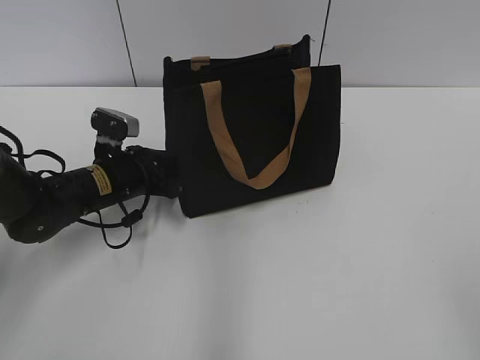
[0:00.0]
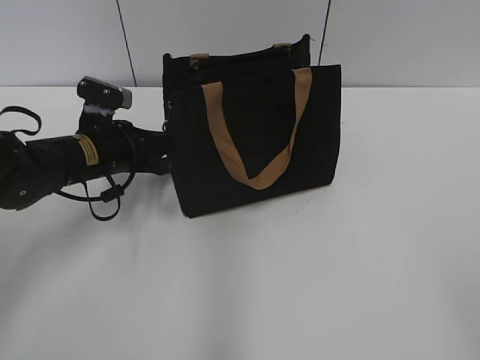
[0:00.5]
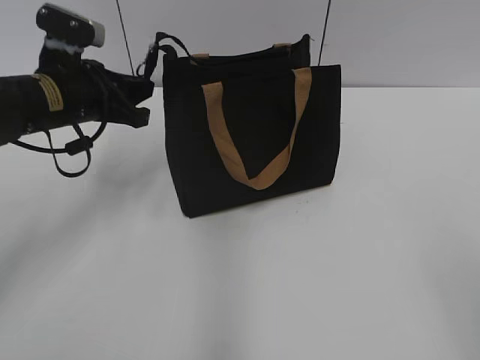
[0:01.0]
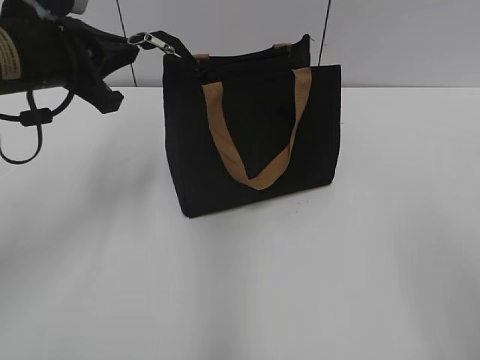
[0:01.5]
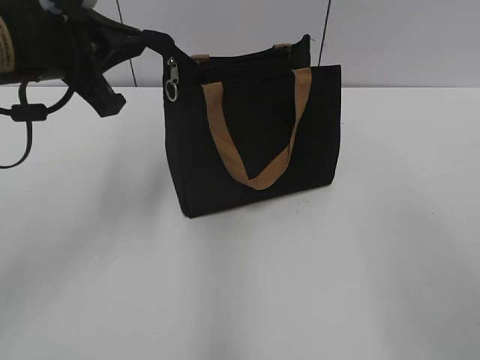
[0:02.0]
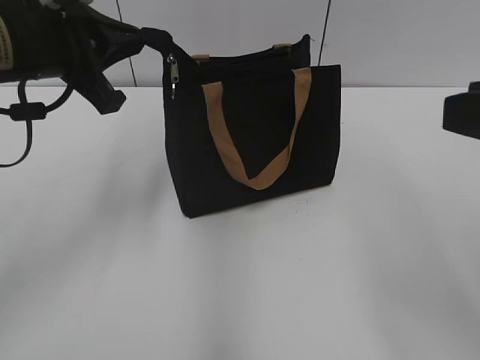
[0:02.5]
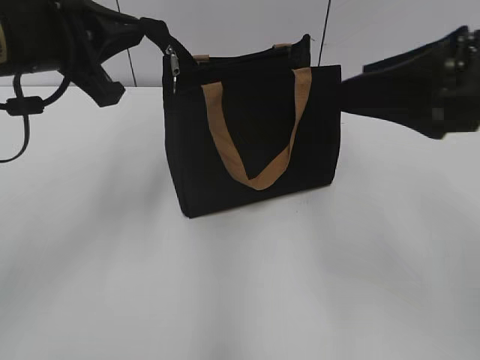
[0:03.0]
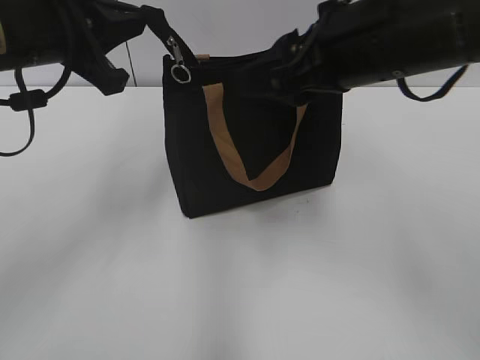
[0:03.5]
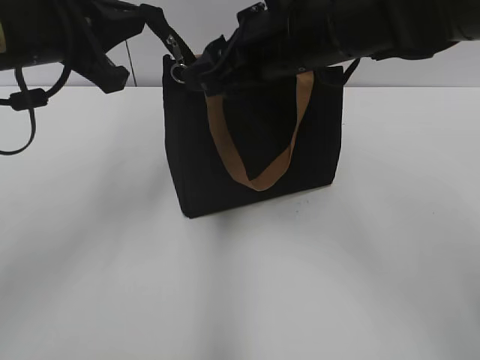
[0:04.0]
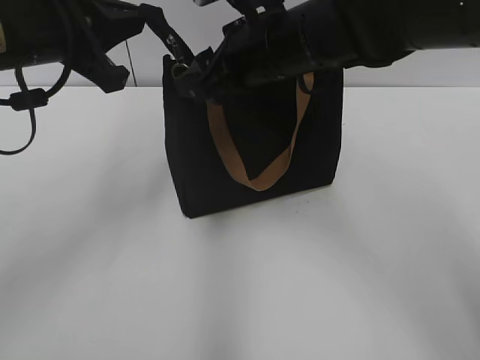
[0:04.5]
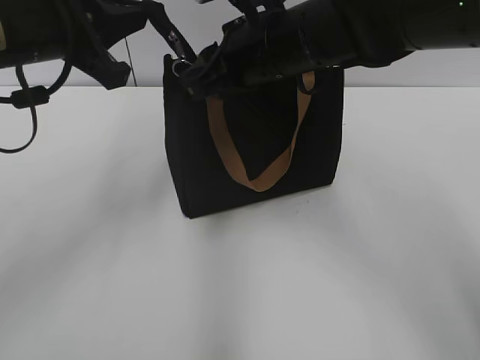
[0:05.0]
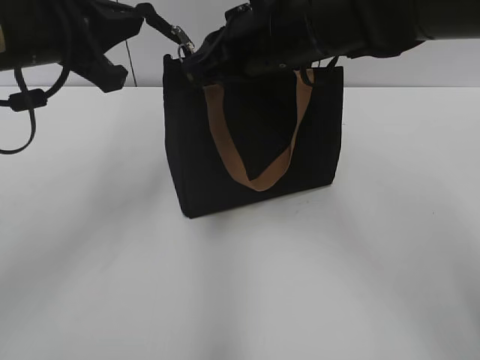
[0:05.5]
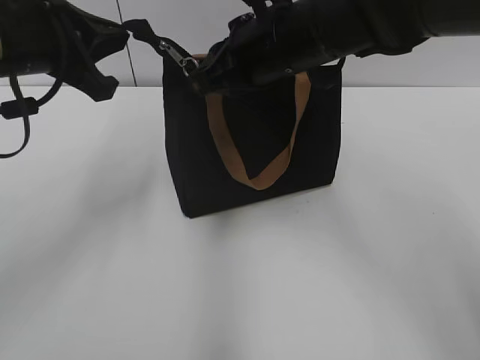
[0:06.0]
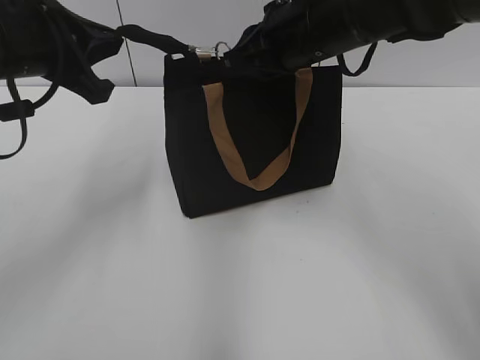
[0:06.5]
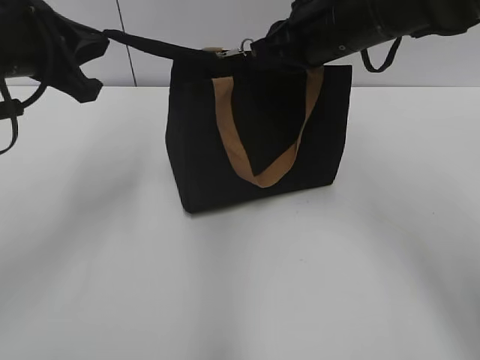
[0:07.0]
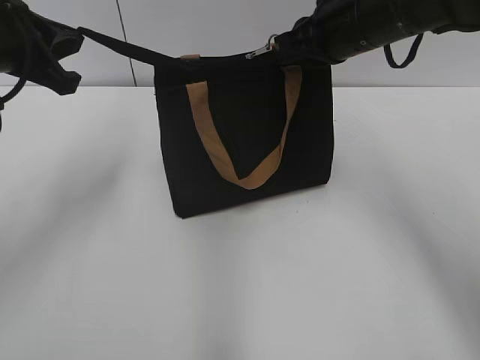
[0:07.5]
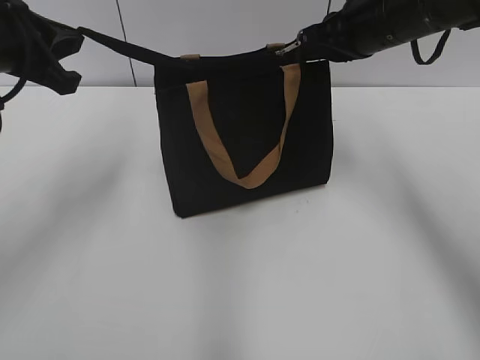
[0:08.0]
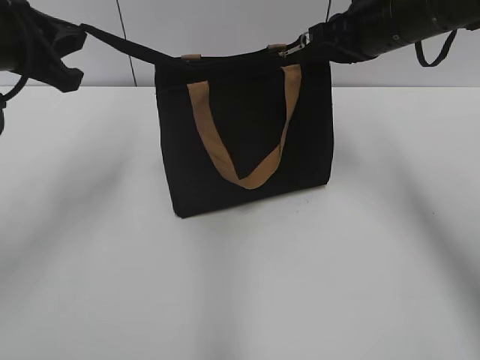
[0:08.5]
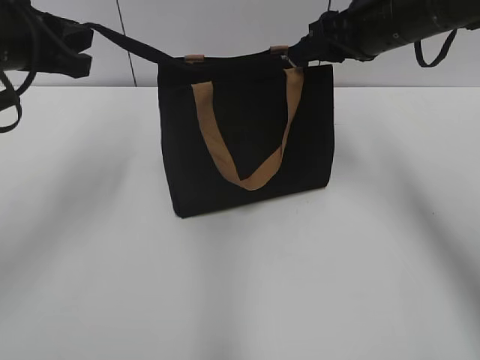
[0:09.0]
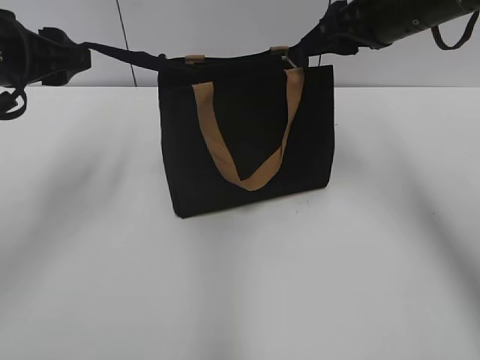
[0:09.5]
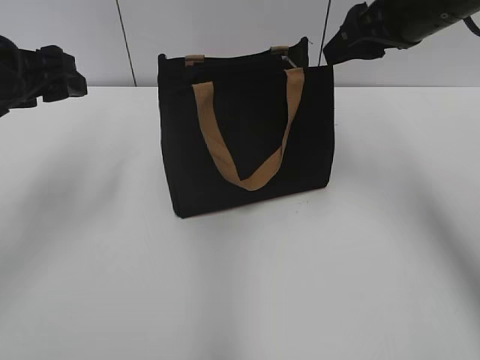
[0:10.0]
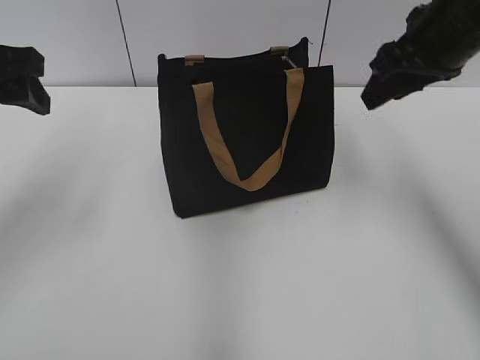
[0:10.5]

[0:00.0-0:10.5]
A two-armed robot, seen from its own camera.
Step, 0:00.0 to 0:08.5: Zip up the bag with your right hand.
Step, 0:09.0 to 0:09.5: Grab the zipper with your left hand.
0:00.0 to 0:02.0: The right gripper moves forward, approximately 10 cm; the left gripper travels upward by approximately 20 cm.
0:02.0 to 0:04.0: The right gripper heads forward and to the left, covering some 30 cm.
0:04.0 to 0:06.5: The right gripper closes up.
0:06.5 to 0:08.5: The right gripper travels to the right by approximately 10 cm.
0:08.5 to 0:10.5: The left gripper opens up; the right gripper travels backward by some 5 cm, and opens up.

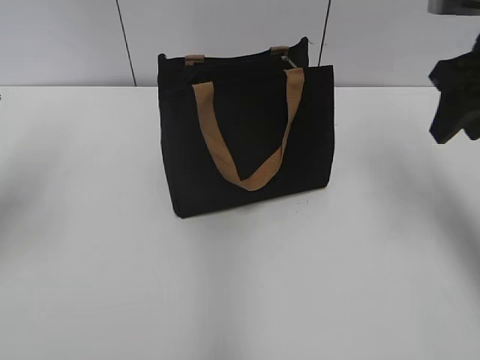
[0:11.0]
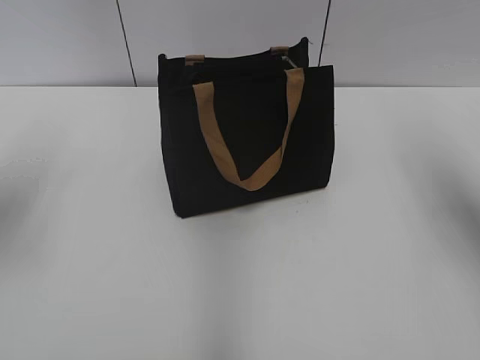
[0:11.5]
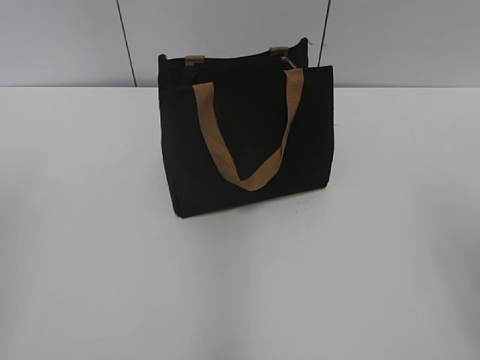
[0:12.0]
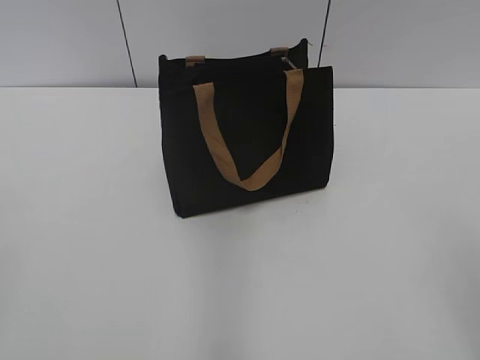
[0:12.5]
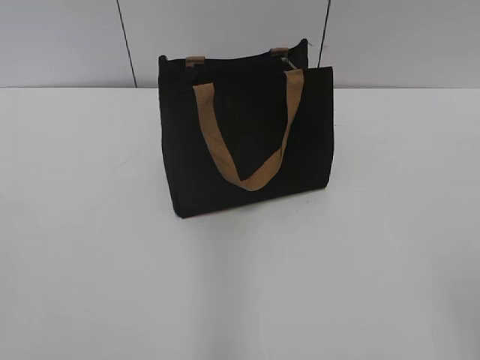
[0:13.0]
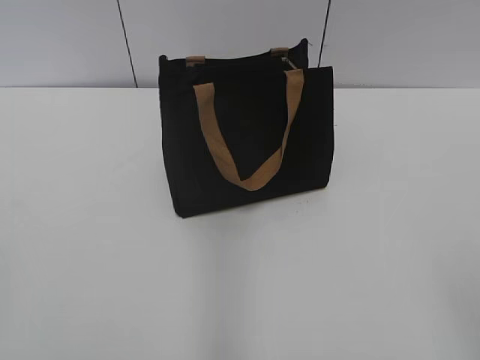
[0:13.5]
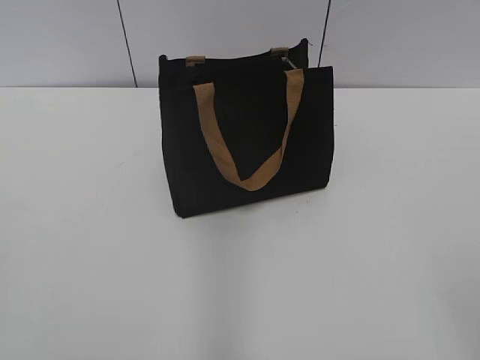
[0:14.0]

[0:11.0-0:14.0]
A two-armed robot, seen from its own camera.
0:11.0 to 0:12.5: The two grippers go about 25 cm backward.

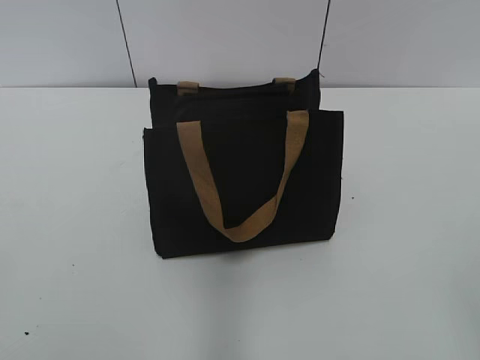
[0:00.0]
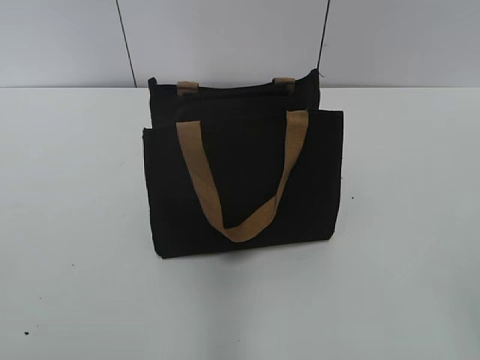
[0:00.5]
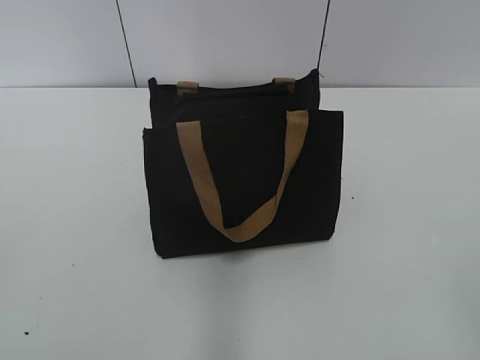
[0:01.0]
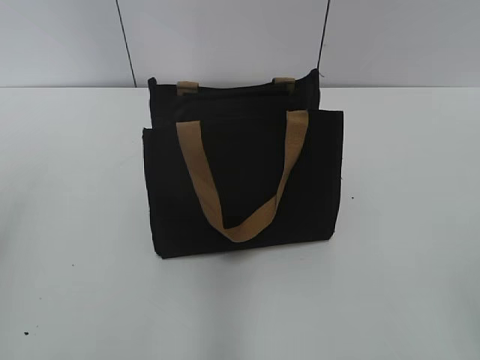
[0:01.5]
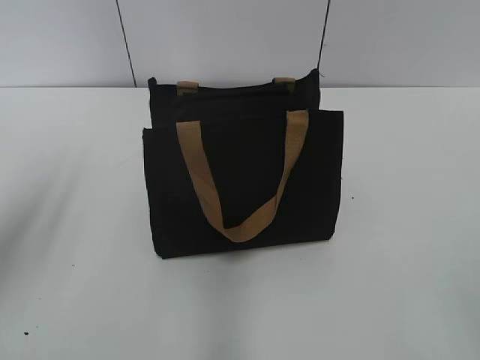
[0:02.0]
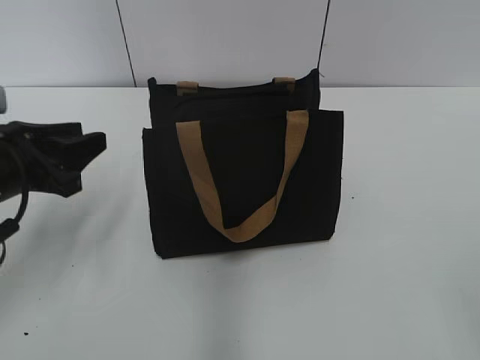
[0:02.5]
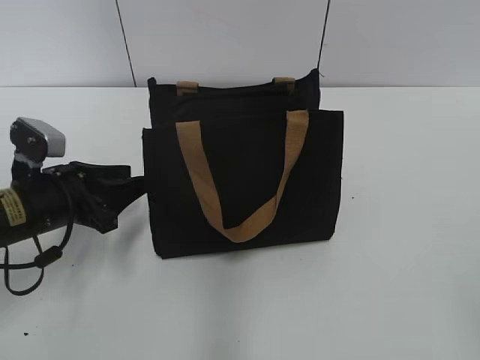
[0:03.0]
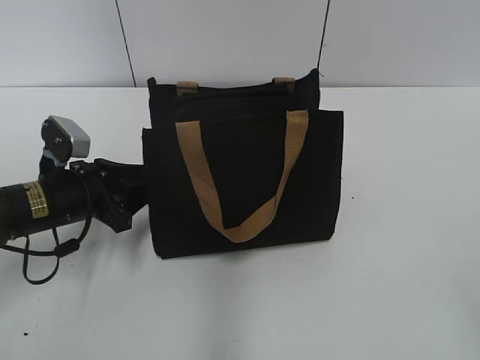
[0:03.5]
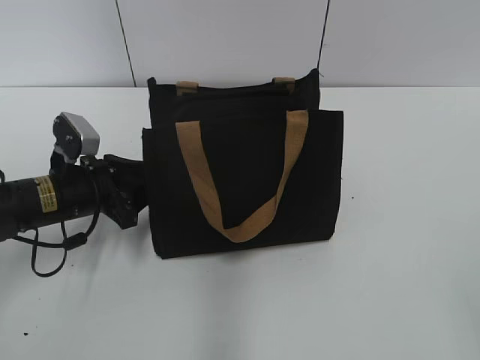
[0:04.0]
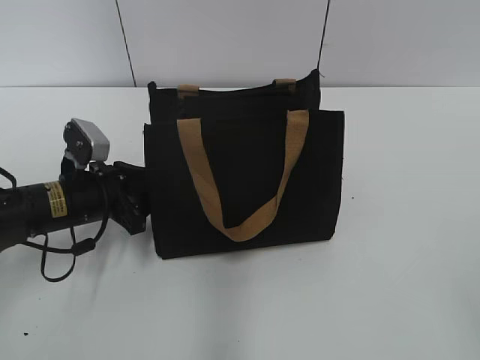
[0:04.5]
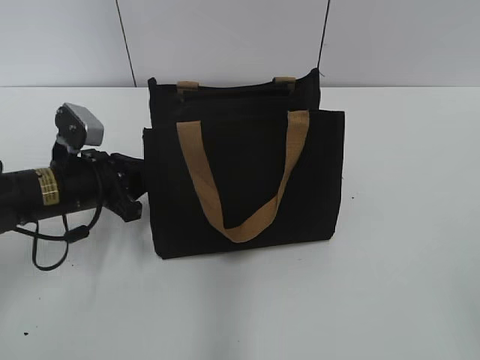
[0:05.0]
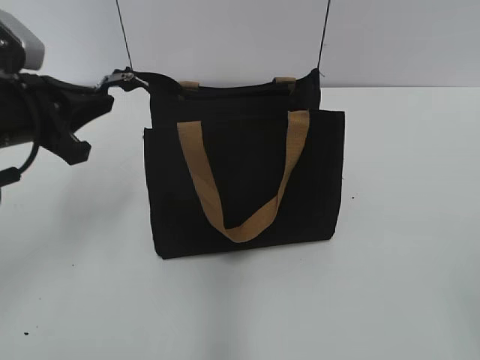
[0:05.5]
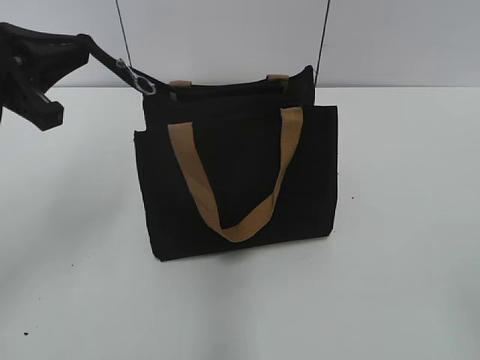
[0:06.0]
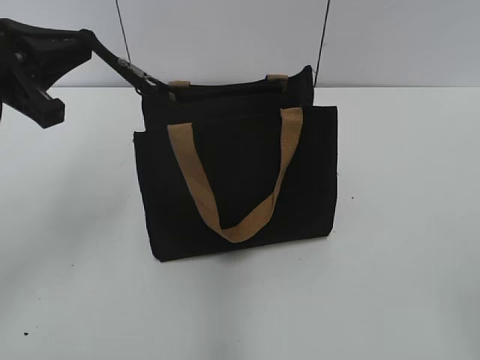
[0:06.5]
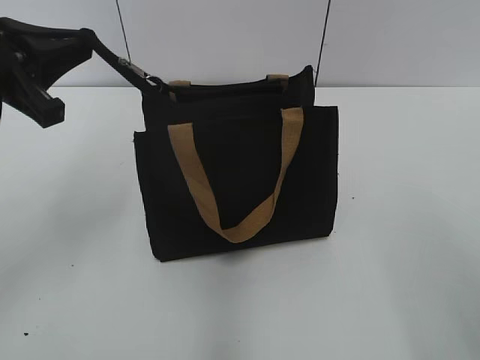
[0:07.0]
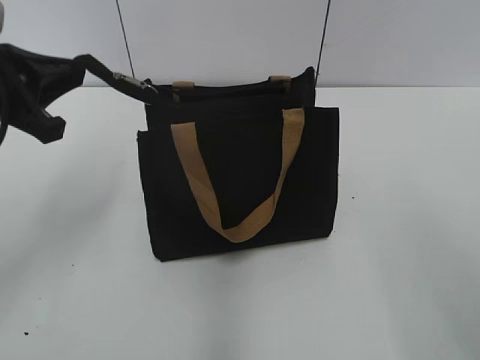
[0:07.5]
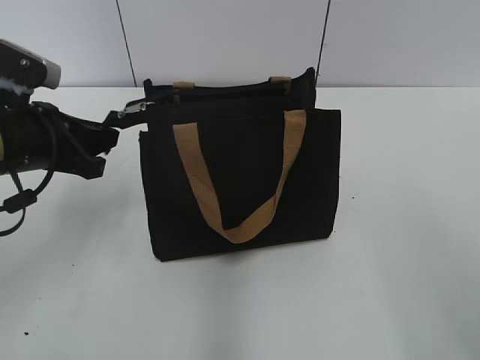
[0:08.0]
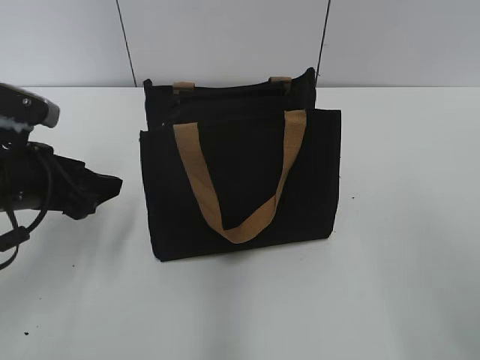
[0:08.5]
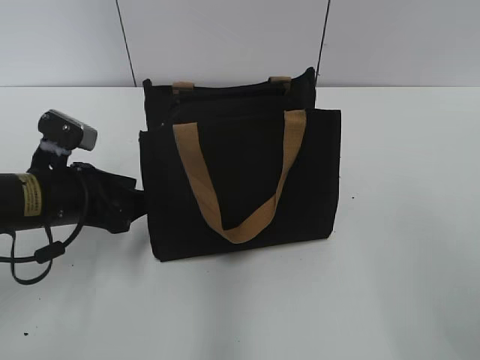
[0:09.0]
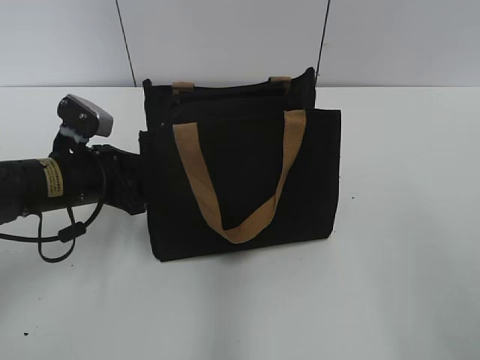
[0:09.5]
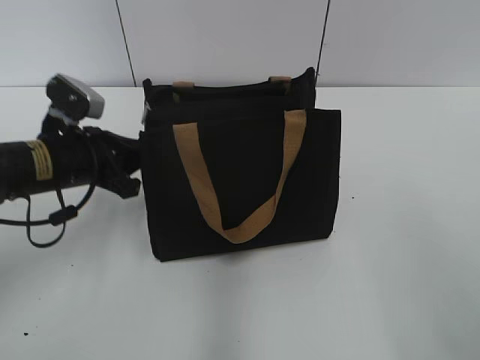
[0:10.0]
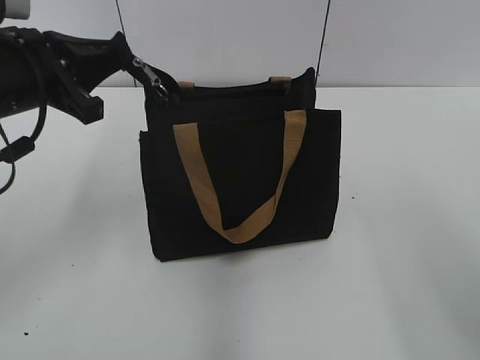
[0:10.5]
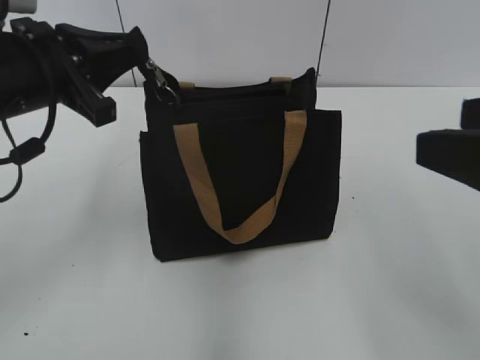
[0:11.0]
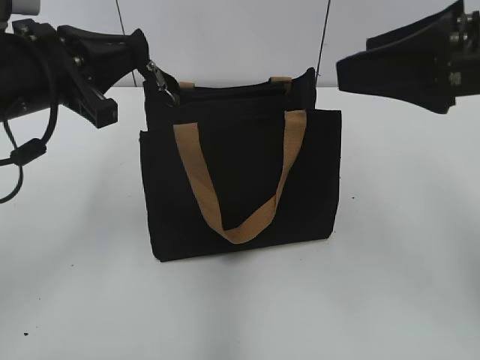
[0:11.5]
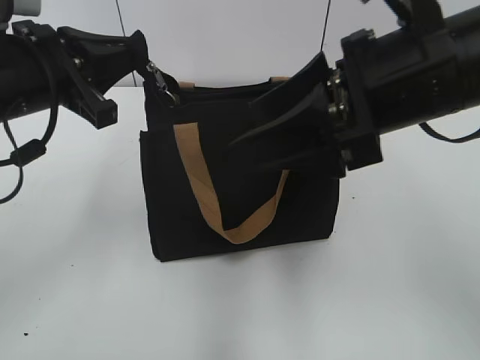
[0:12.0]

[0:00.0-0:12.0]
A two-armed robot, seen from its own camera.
0:02.0 to 0:04.0: The left gripper moves downward, forward and to the right, roughly 20 cm.
0:04.0 to 0:06.0: The left gripper moves upward, roughly 20 cm, and closes.
0:06.0 to 0:08.0: The right gripper goes roughly 10 cm forward; the left gripper is displaced downward by roughly 10 cm.
0:08.0 to 0:10.0: The left gripper moves downward, roughly 5 cm, and opens, then closes once more.
0:10.0 to 0:12.0: The left gripper shifts roughly 15 cm upward, while the right gripper is displaced forward and to the left by about 20 cm.
